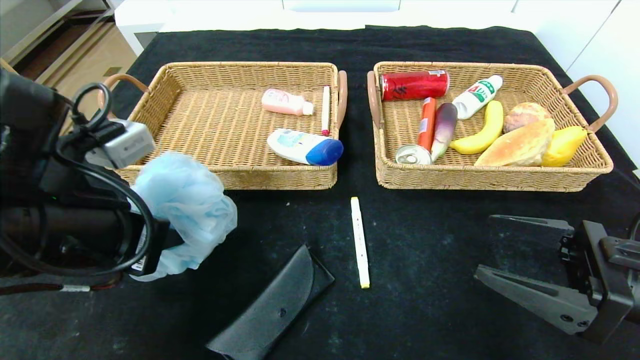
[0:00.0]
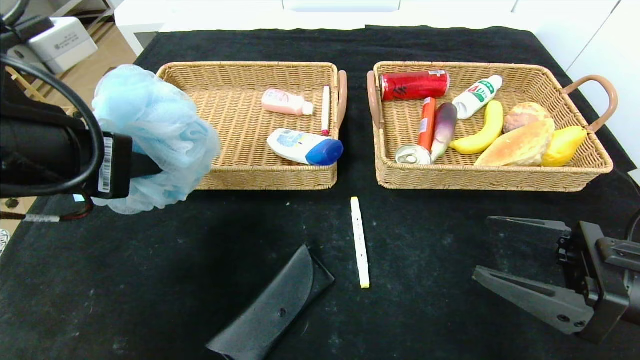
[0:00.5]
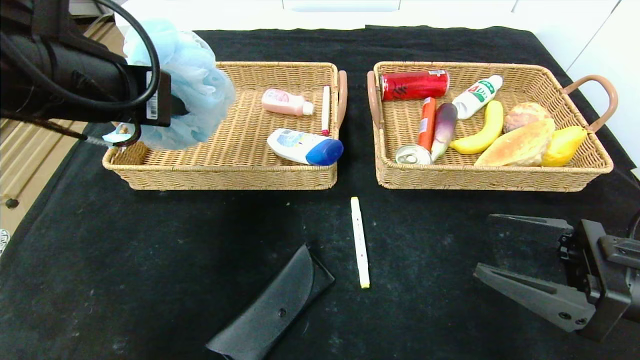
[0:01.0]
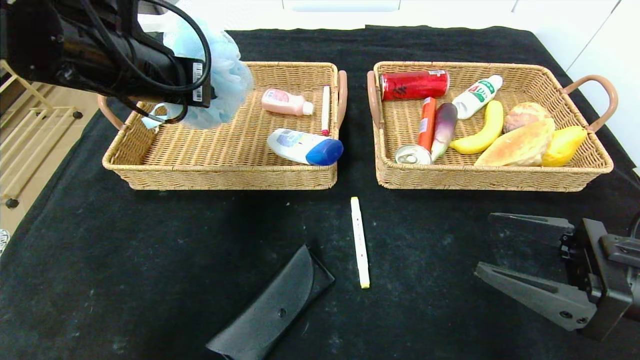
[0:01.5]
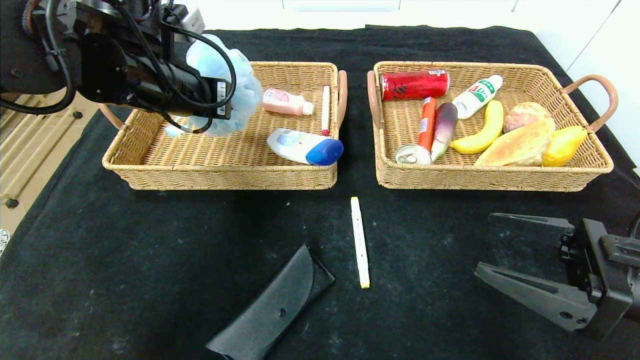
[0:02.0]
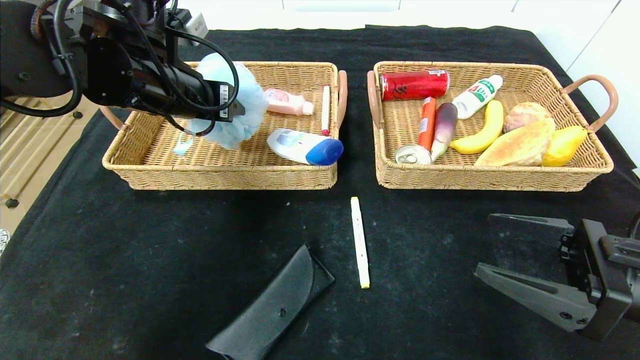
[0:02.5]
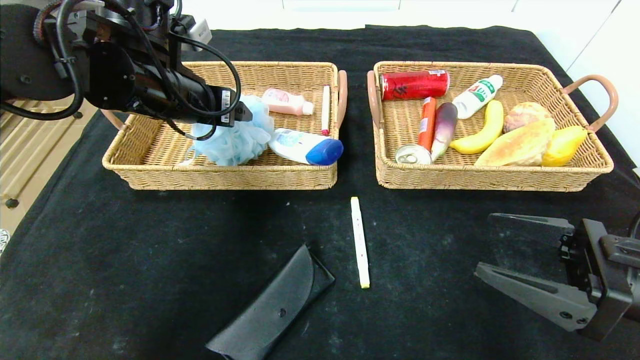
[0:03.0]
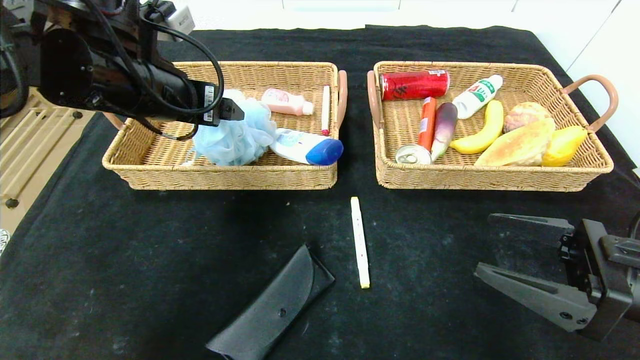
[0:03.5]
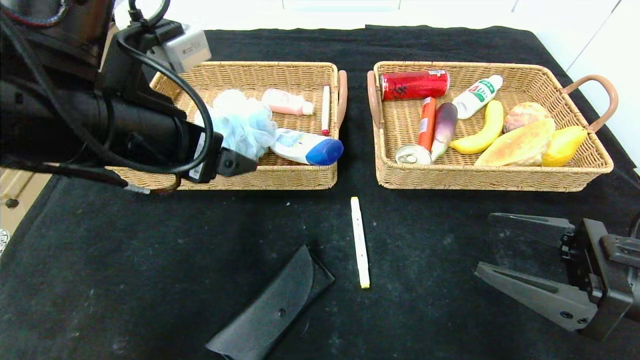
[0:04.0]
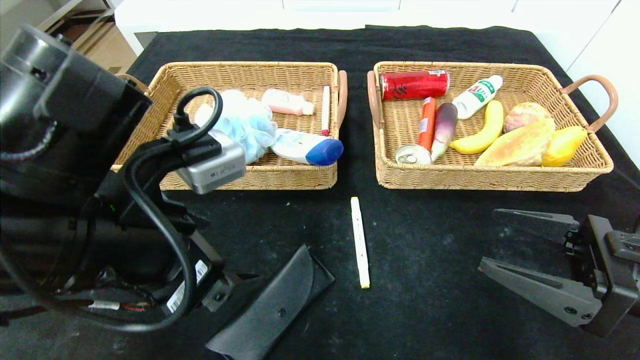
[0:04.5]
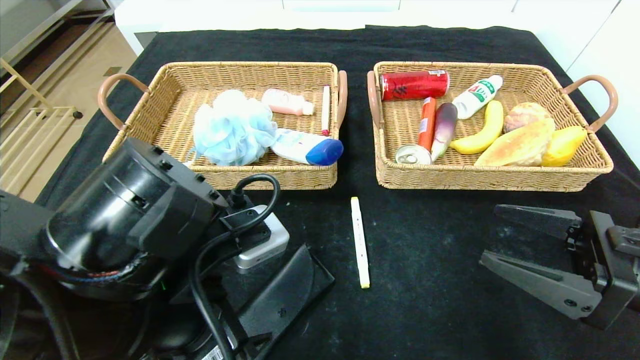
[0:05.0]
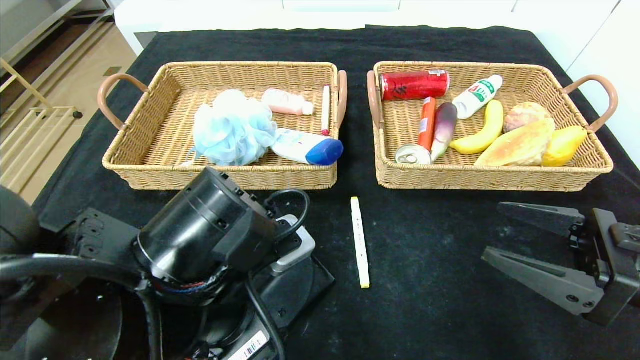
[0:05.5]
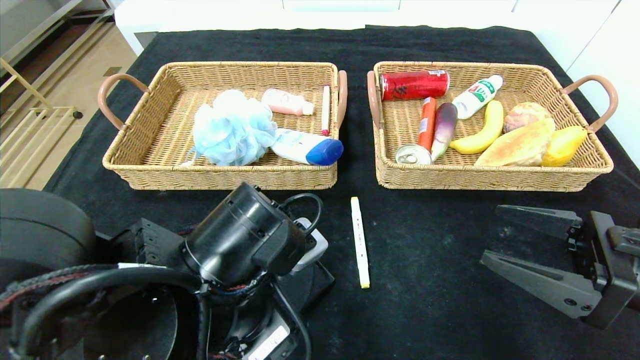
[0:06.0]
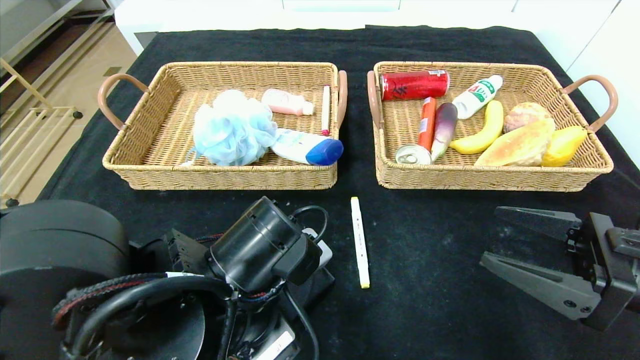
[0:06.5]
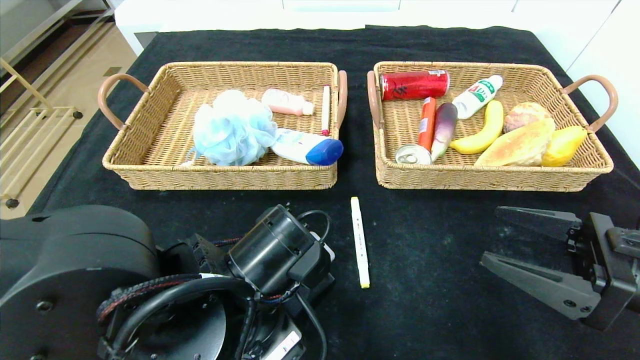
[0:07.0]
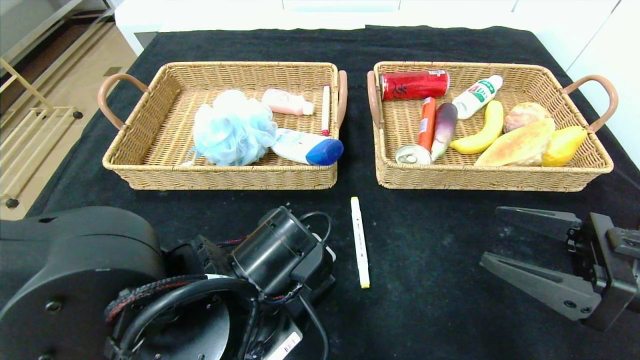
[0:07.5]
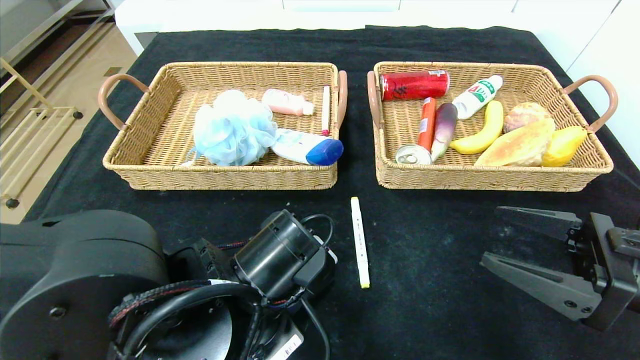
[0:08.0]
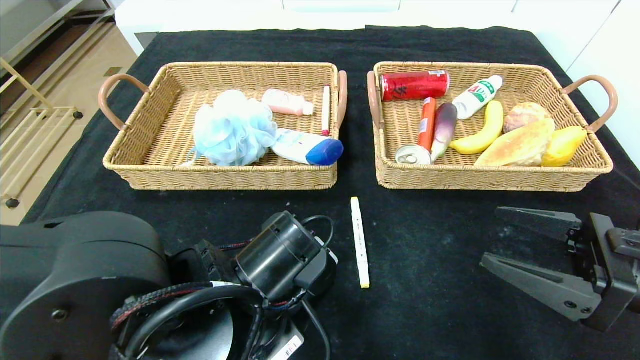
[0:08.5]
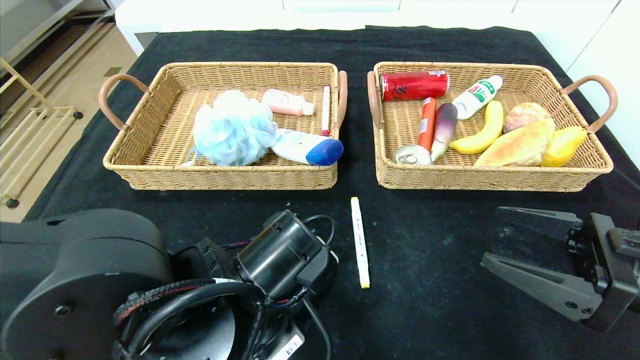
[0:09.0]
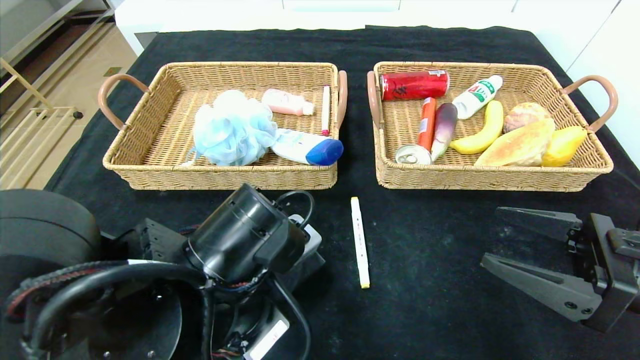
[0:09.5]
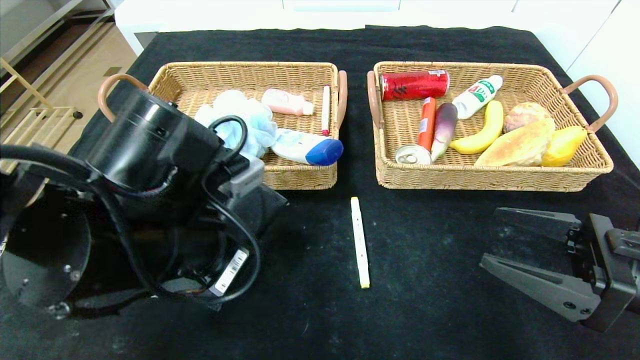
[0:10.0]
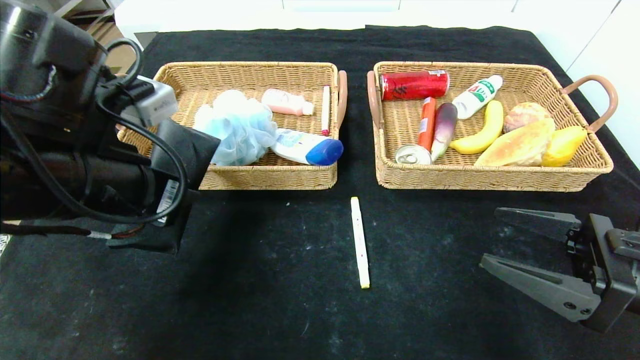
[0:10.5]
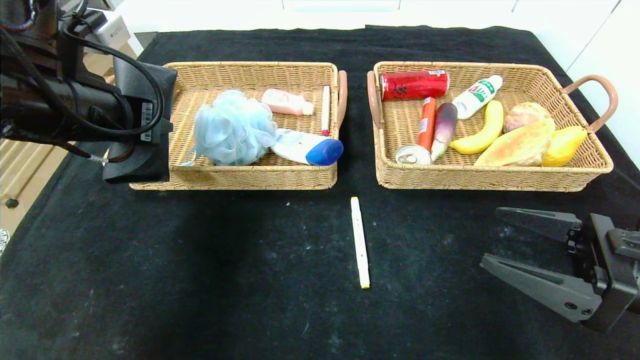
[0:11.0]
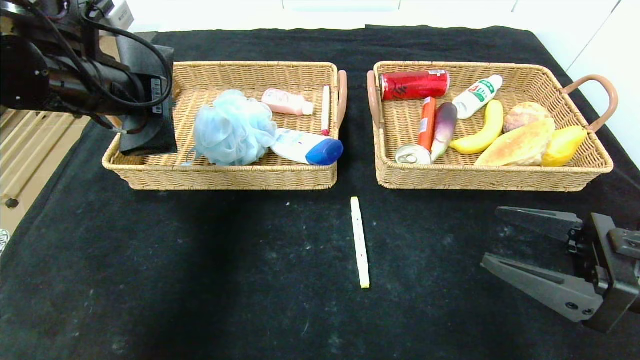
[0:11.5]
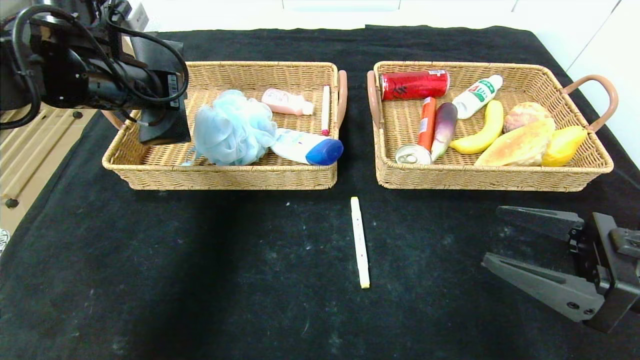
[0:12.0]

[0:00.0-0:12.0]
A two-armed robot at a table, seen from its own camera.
Step, 0:00.0 to 0:03.0: Grasp the bath ball and put it in the left basket.
0:00.0 to 0:02.0: The left gripper is displaced forward and upward by roughly 15 cm.
0:02.0 to 0:04.0: The left gripper shifts approximately 10 cm backward, and opens its fingers.
0:04.0 to 0:06.0: The left gripper is displaced downward and to the right by some 15 cm.
0:06.0 to 0:08.0: The left gripper closes up.
0:08.0 to 0:10.0: The left gripper goes some 10 cm upward and to the left.
0:10.0 to 0:12.0: The left gripper goes roughly 20 cm forward, to the left and upward.

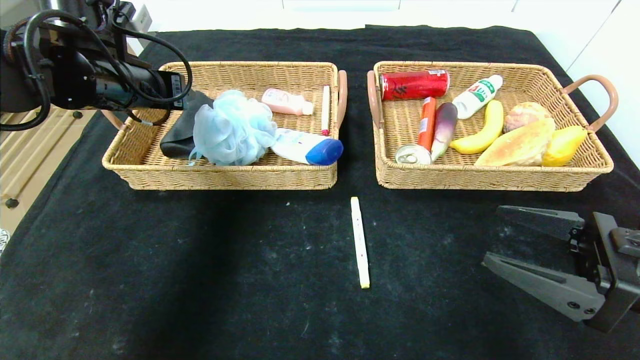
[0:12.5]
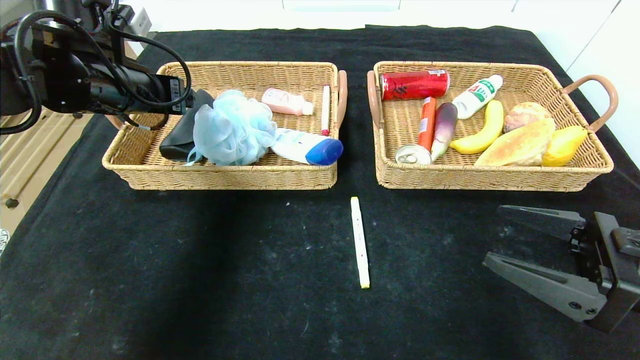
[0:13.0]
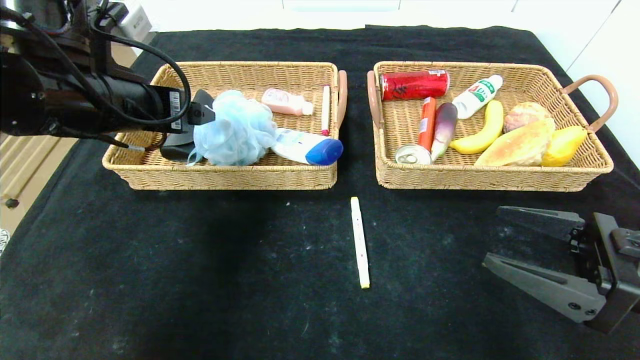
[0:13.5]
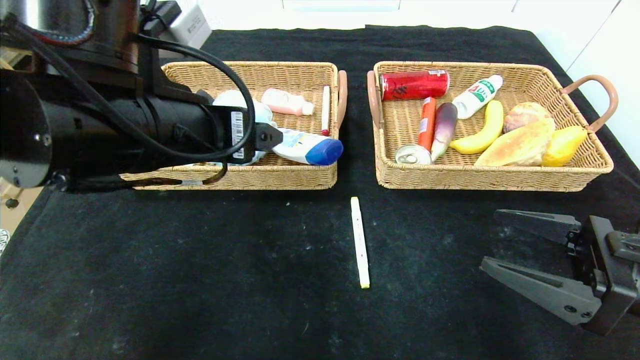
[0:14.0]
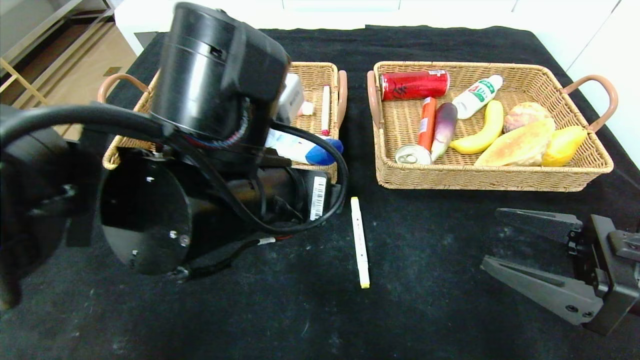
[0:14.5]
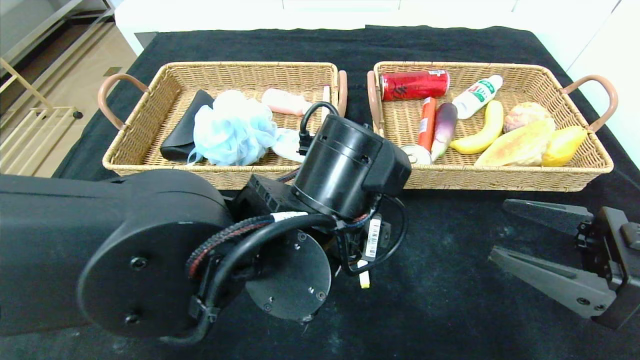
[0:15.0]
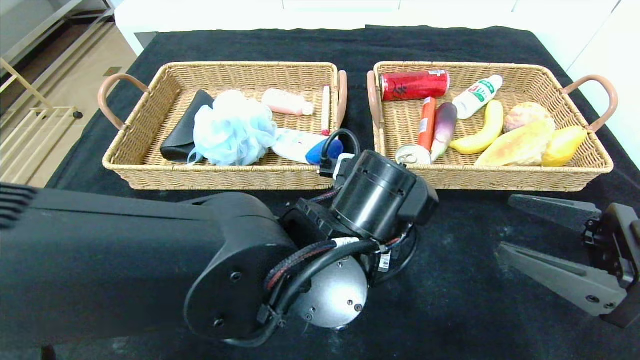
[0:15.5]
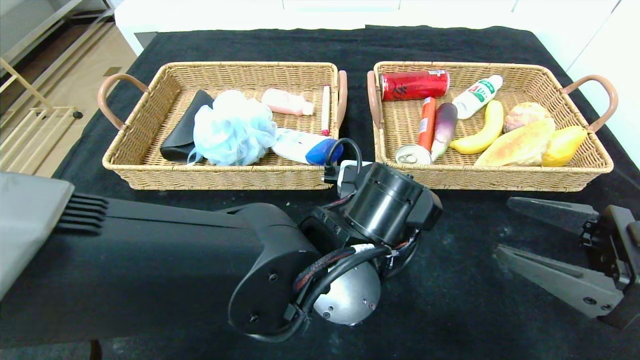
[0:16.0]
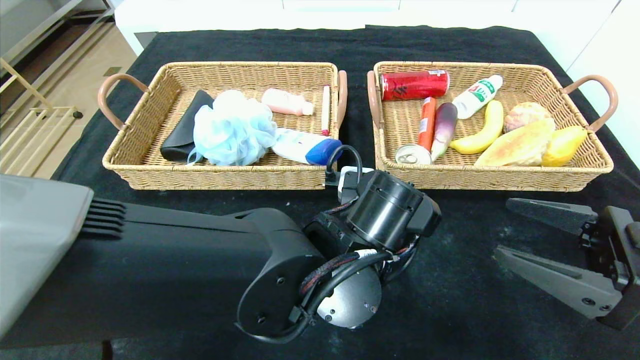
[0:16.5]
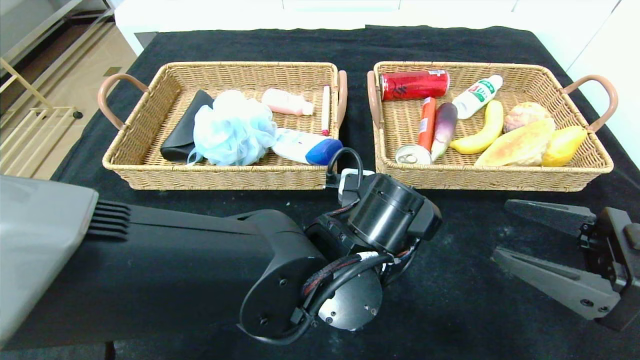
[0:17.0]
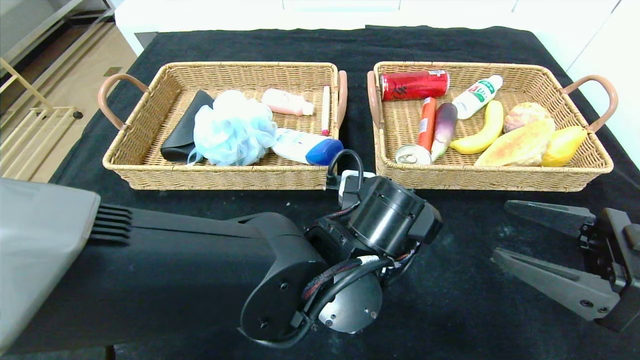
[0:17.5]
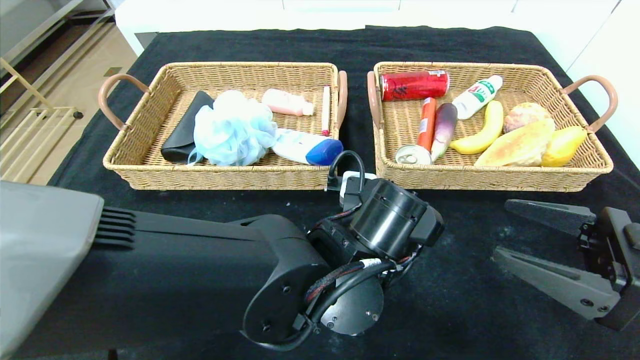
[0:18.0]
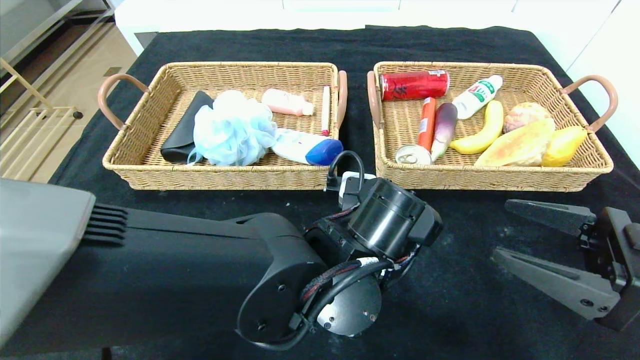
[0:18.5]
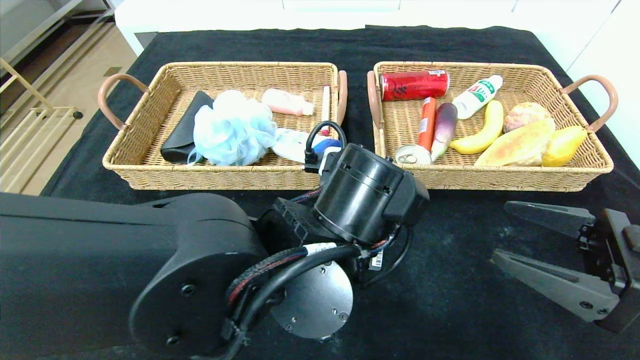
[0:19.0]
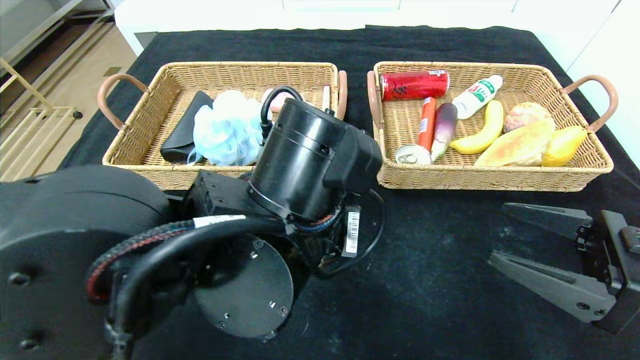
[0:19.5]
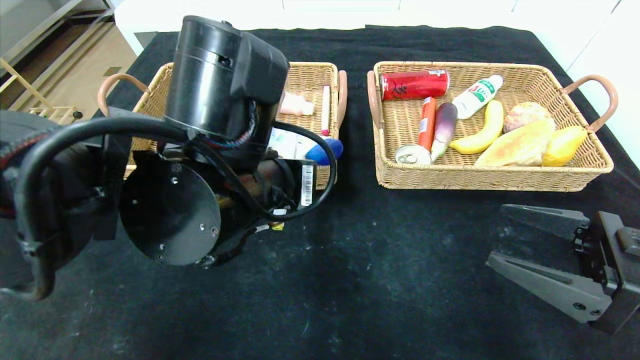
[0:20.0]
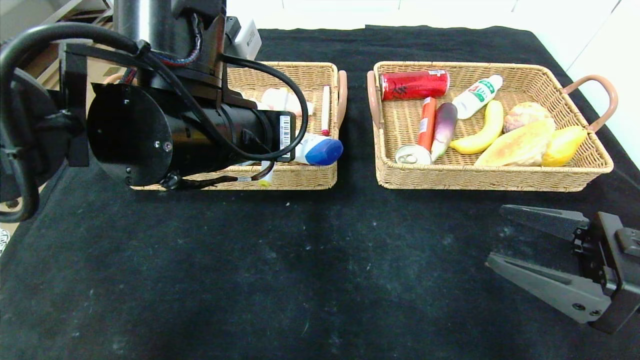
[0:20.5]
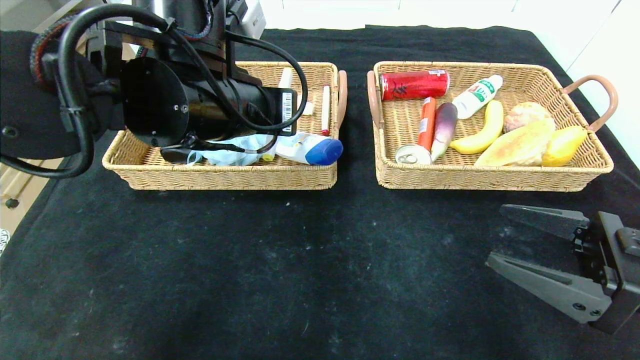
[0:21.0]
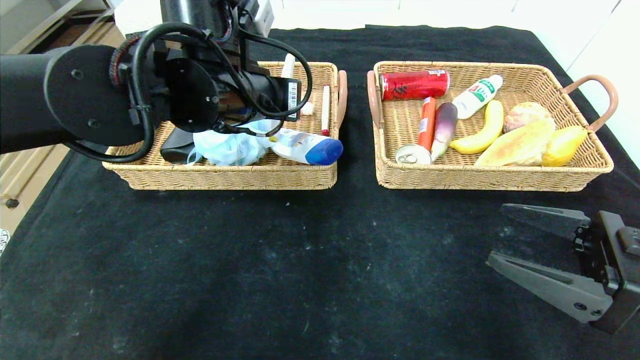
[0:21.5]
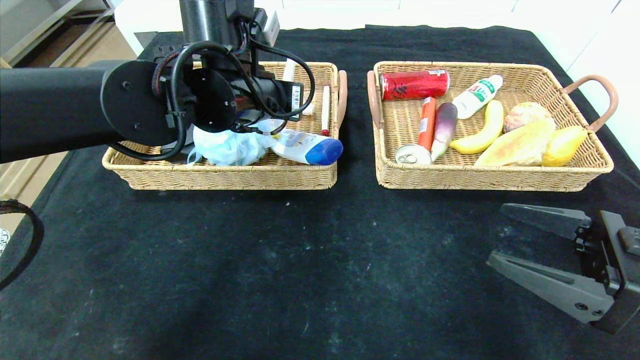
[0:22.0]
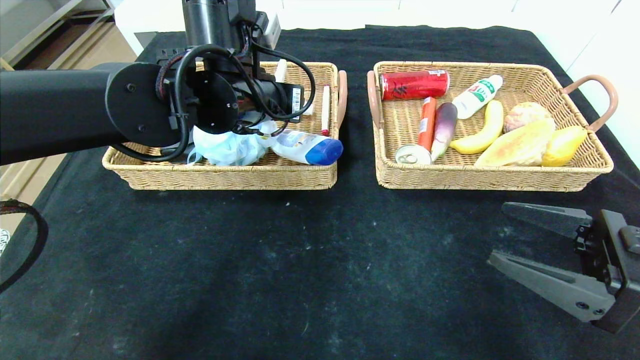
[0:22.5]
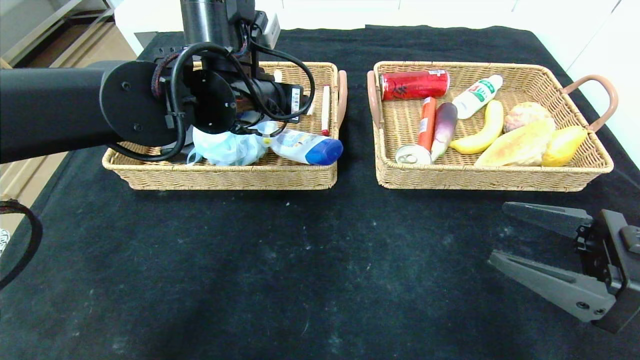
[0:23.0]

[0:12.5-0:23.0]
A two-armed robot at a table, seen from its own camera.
0:12.5 to 0:14.5: The left gripper goes approximately 25 cm to the right and backward.
0:14.5 to 0:16.5: The left gripper shifts roughly 15 cm downward and to the right.
0:16.5 to 0:19.0: The left gripper closes its fingers.
0:19.0 to 0:21.0: The left gripper is displaced upward, to the left and forward by some 15 cm.
0:21.0 to 0:23.0: The left gripper is displaced forward by about 5 cm, and opens its fingers.
